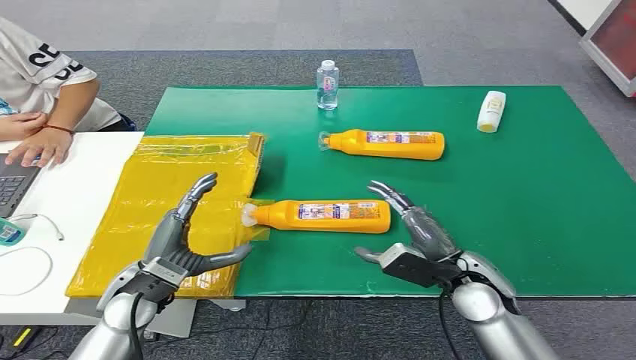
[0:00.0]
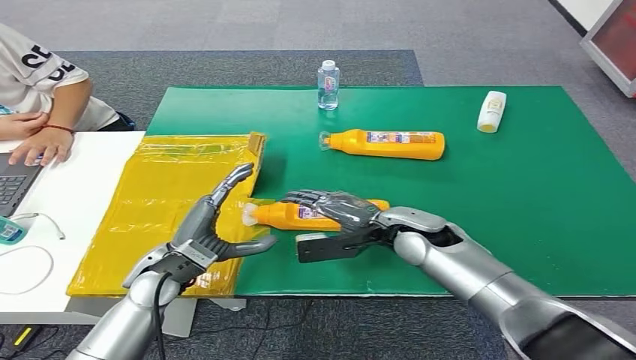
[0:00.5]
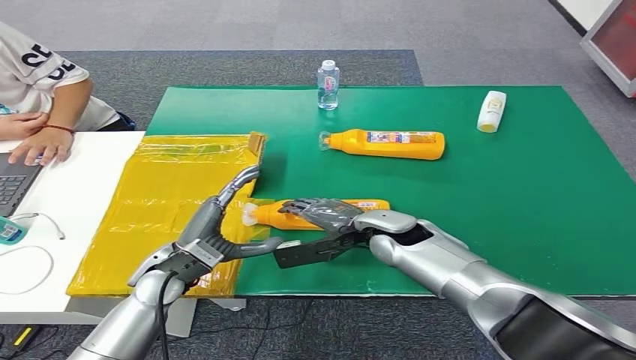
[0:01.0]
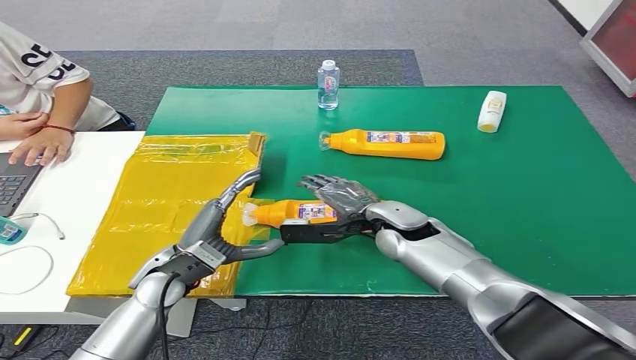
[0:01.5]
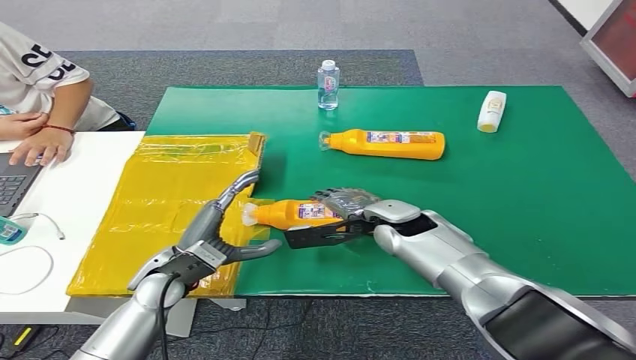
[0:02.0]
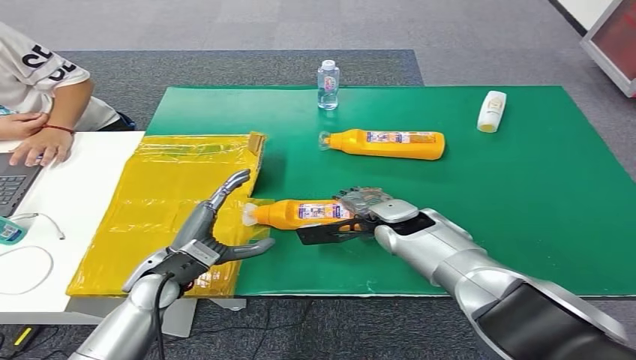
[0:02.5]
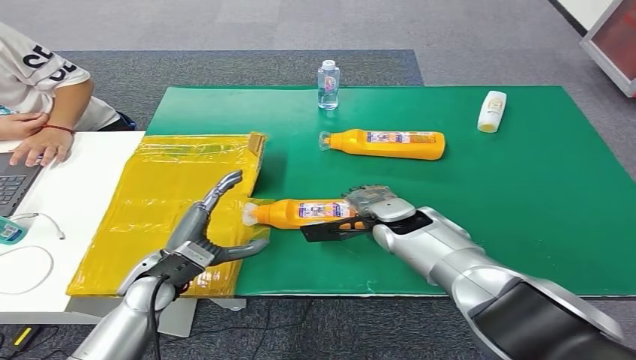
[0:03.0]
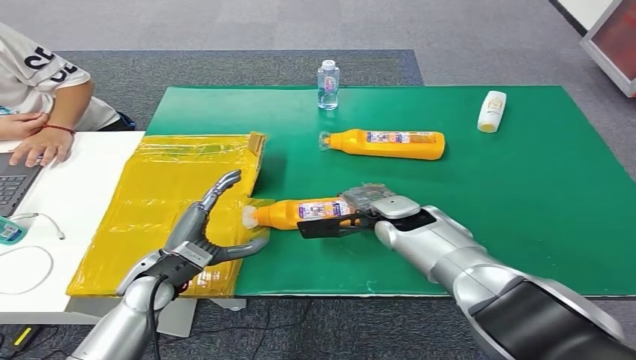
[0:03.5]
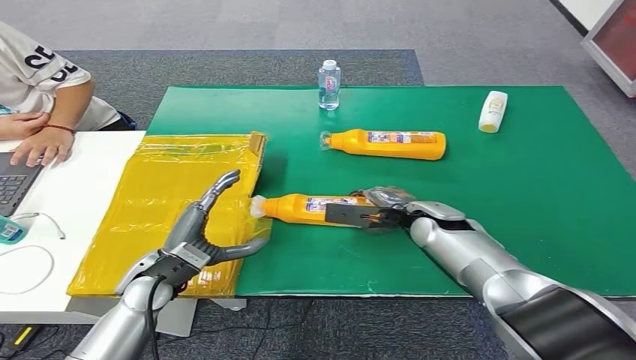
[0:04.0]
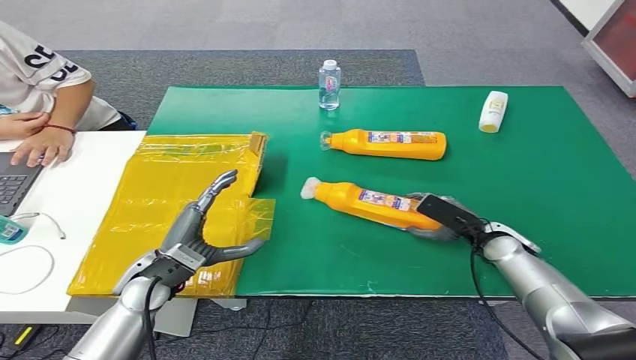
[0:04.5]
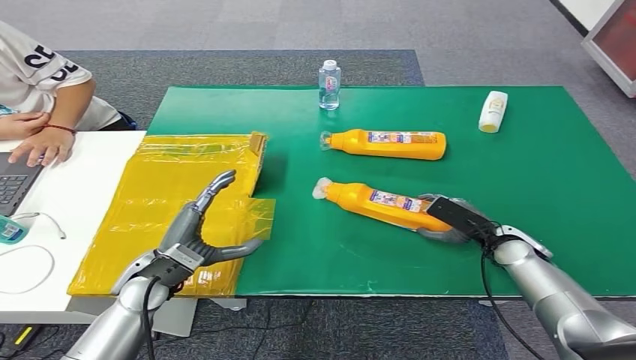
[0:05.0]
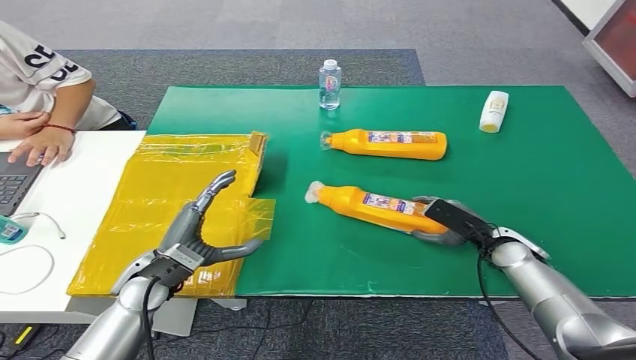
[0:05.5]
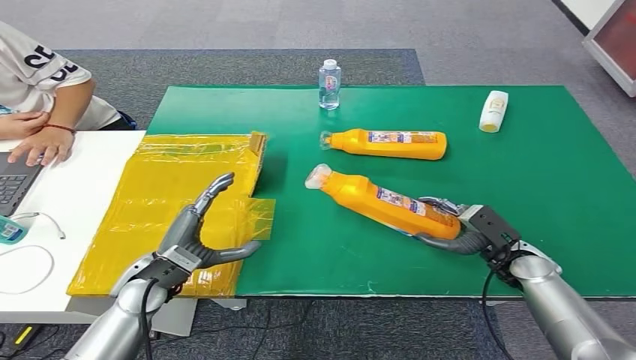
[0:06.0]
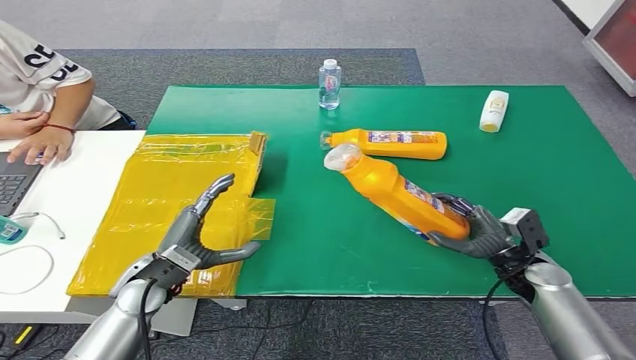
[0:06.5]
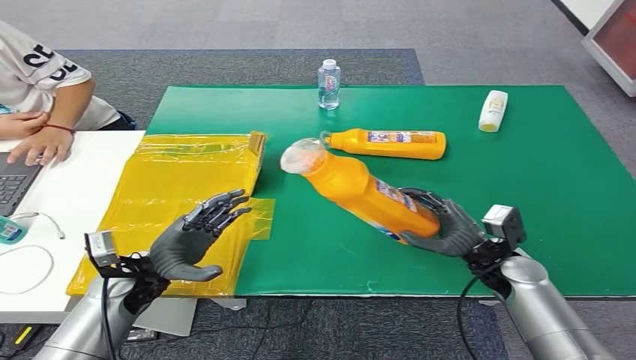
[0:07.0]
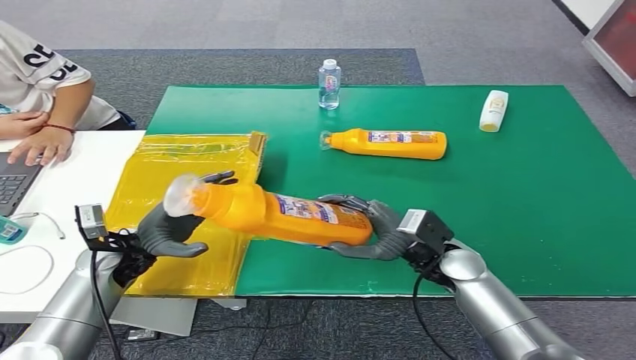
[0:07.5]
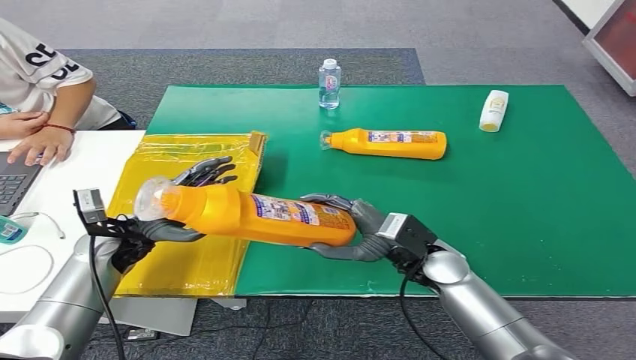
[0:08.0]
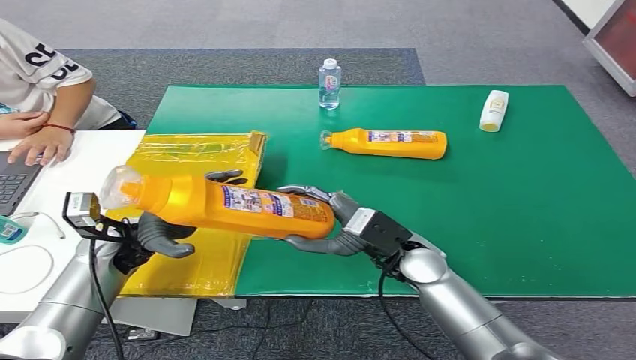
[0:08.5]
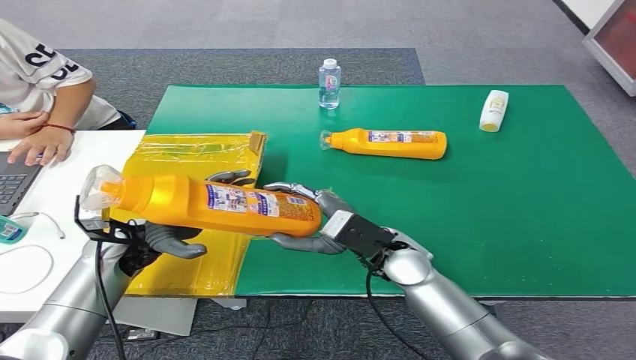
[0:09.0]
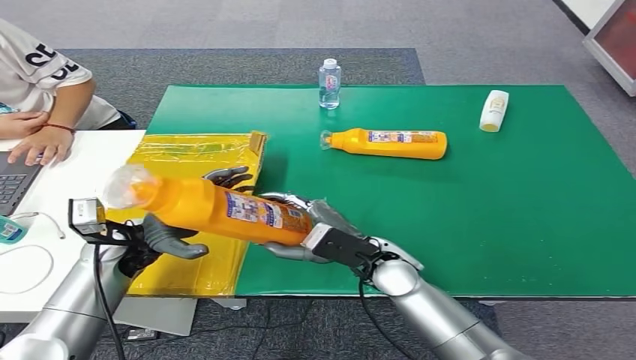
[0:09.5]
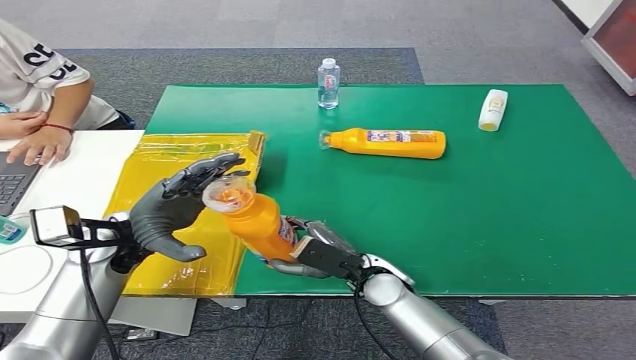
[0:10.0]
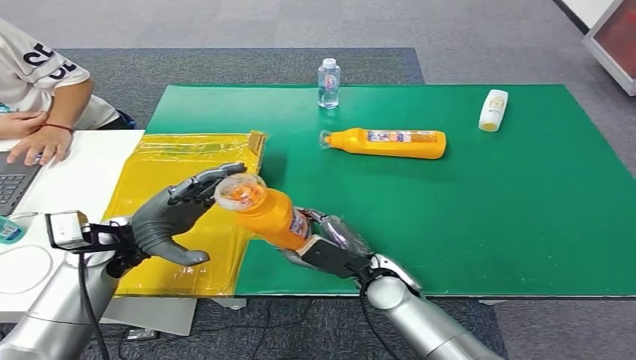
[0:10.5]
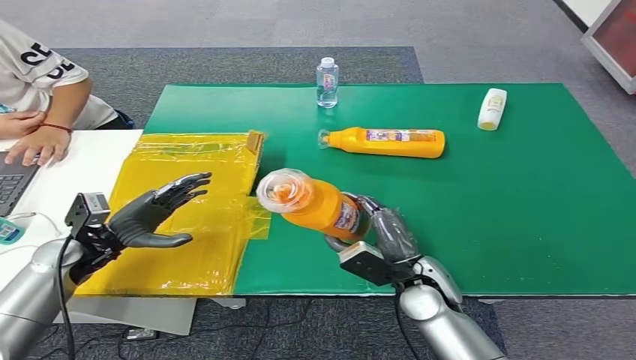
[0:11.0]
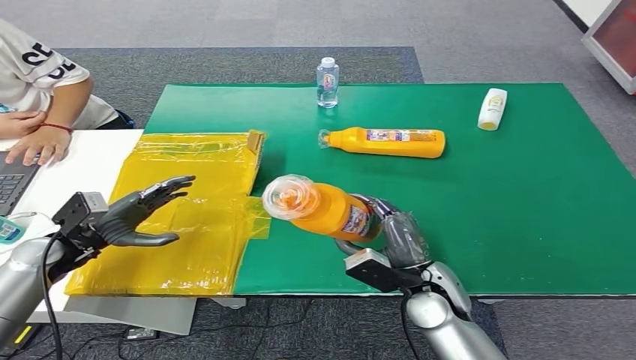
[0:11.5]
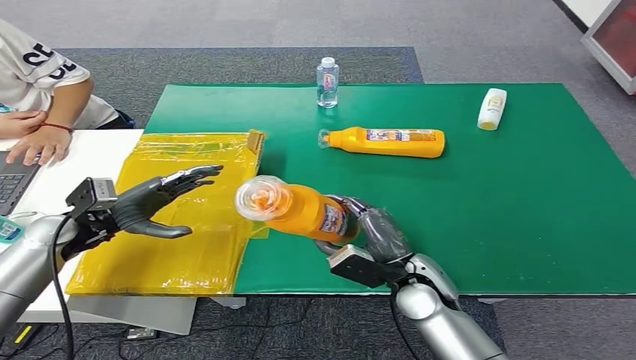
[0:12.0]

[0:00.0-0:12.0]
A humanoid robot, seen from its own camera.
Step, 0:00.0 to 0:06.0: Pick up the bottle from the table.
0:02.0 to 0:04.0: The right hand moves to the right, approximately 5 cm.
0:04.0 to 0:06.0: The right hand is displaced to the right, backward and downward by approximately 15 cm.
0:08.0 to 0:10.0: The right hand travels to the left by approximately 5 cm; the left hand shifts some 5 cm upward.
0:10.0 to 0:12.0: The left hand moves to the left, approximately 10 cm; the right hand travels to the right by approximately 5 cm.

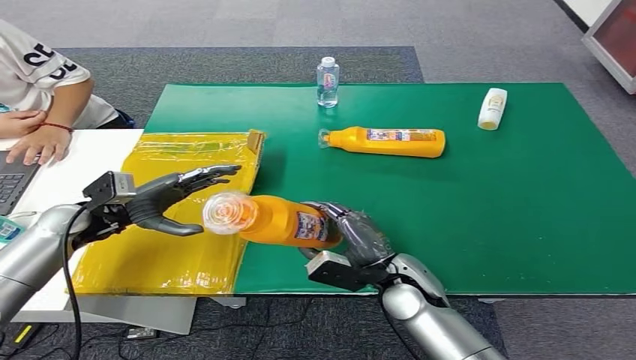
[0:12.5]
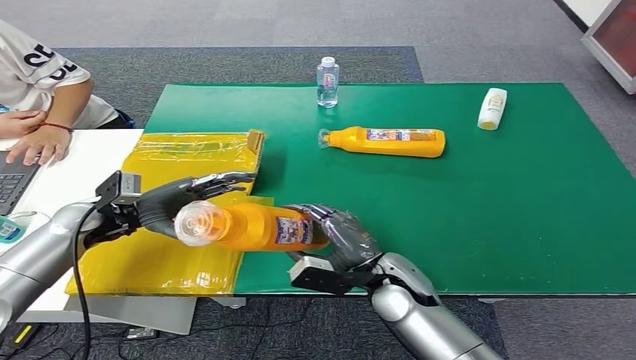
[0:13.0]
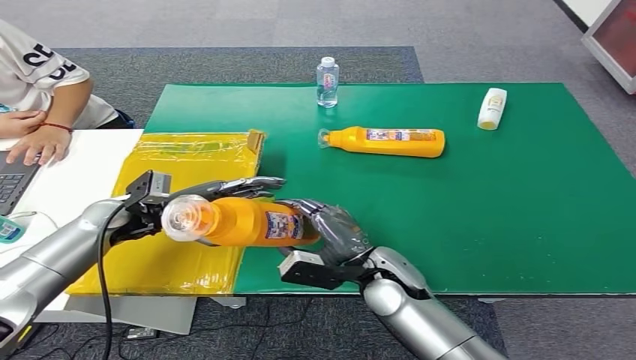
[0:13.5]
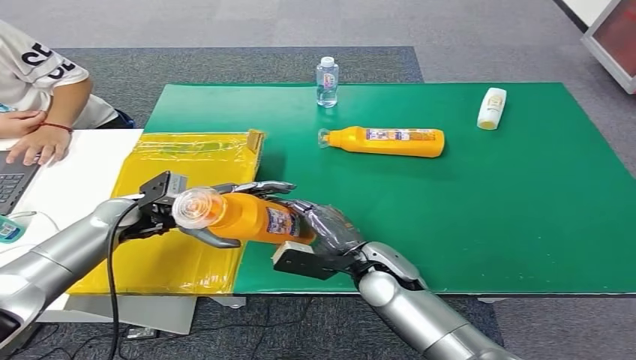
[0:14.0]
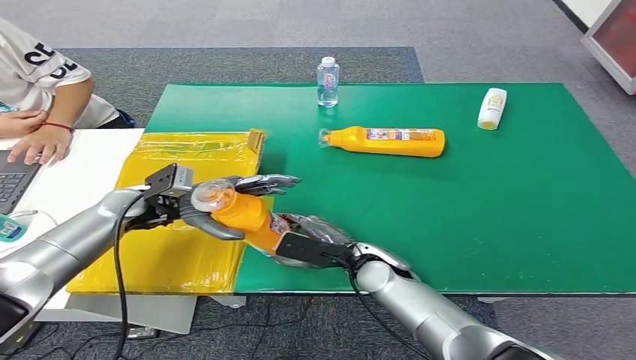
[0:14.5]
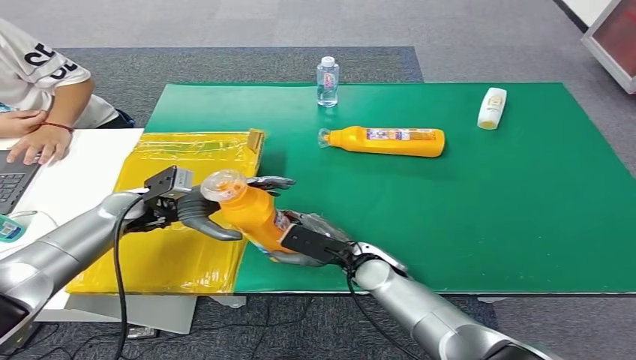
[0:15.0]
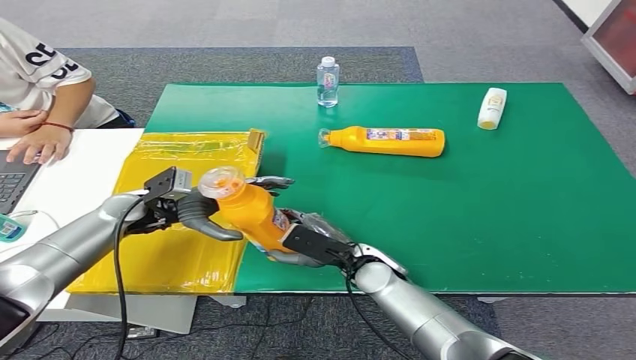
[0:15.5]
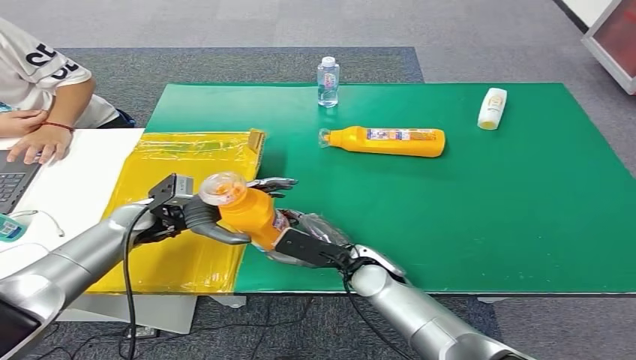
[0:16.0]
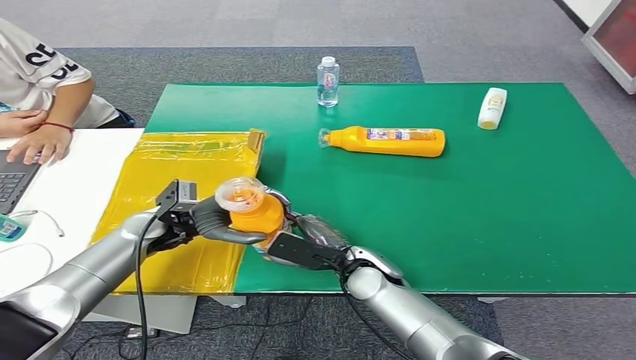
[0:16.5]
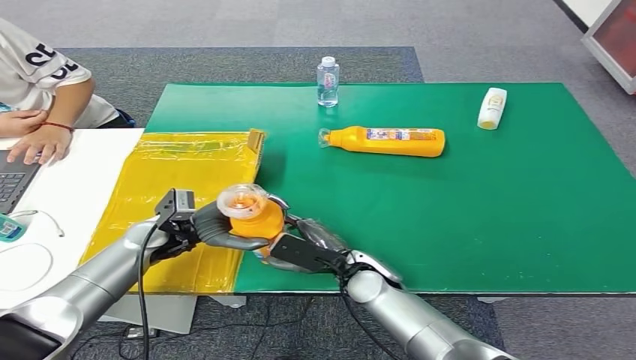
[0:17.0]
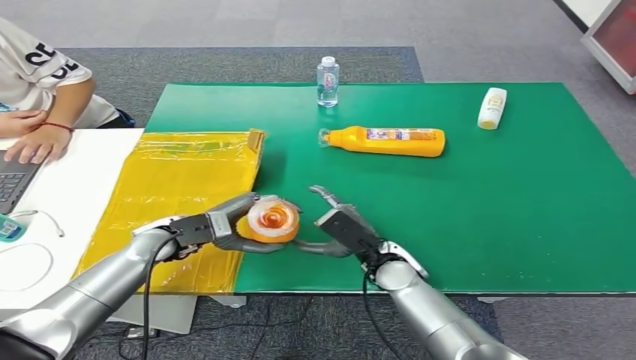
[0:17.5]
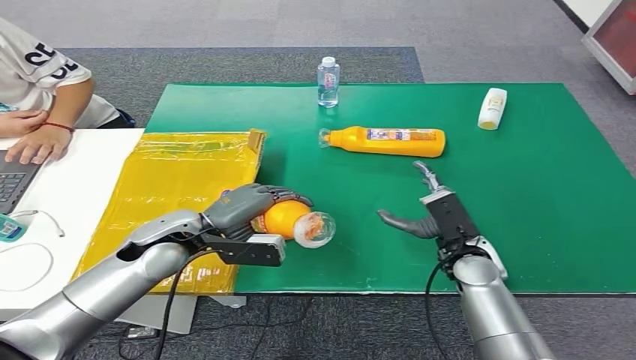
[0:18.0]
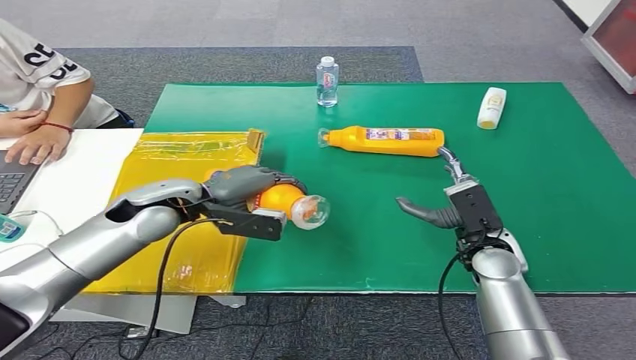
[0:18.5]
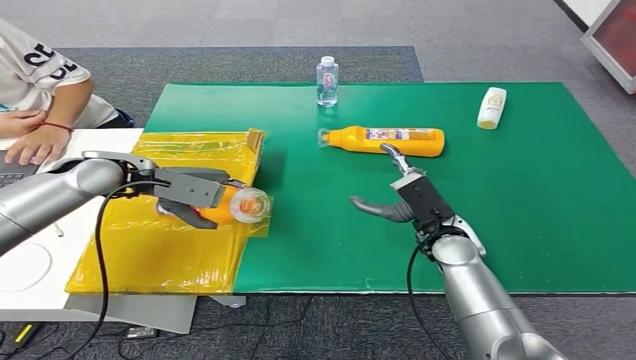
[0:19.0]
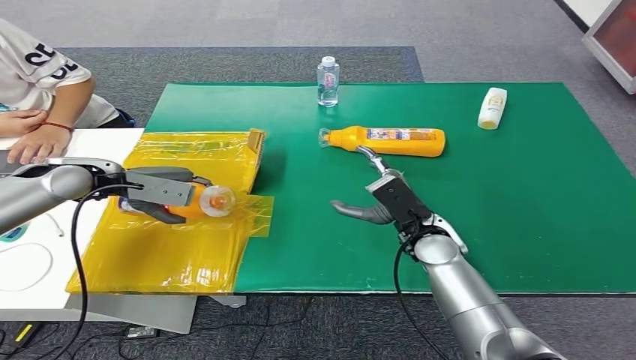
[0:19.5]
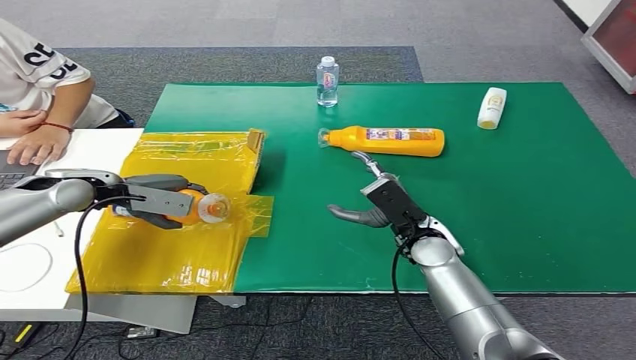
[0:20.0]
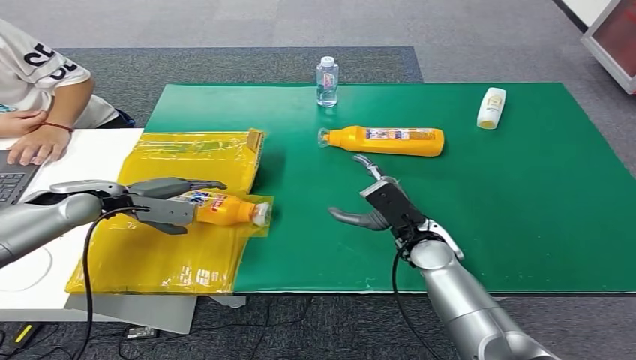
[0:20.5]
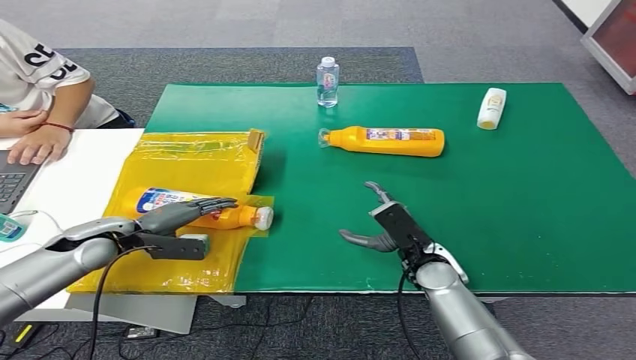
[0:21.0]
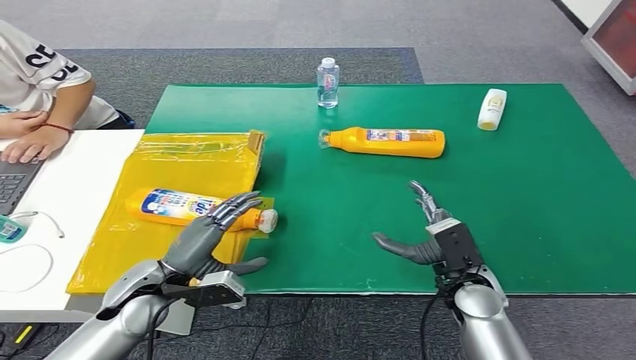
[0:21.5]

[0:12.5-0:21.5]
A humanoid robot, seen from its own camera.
Step, 0:12.5 to 0:21.5: Turn the bottle to the front side.
0:14.5 to 0:17.0: The left hand shifts about 5 cm downward.
0:19.5 to 0:21.5: The left hand heads backward, downward and to the right, covering approximately 25 cm, while the right hand shifts approximately 10 cm backward.
